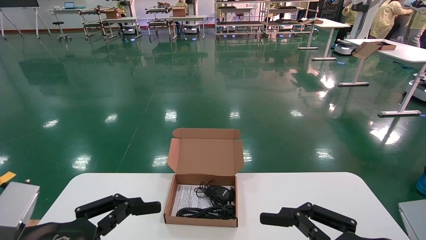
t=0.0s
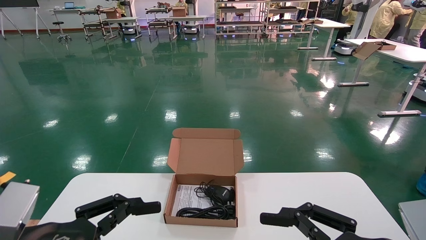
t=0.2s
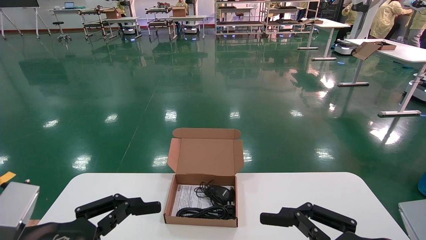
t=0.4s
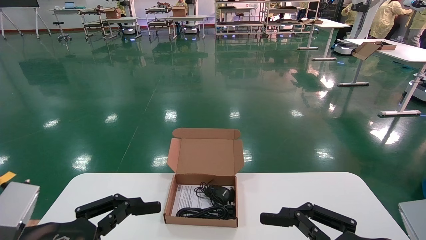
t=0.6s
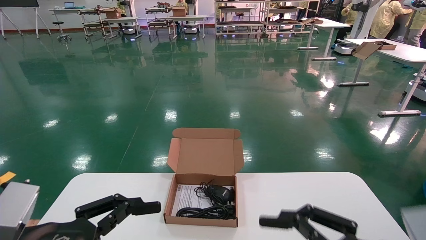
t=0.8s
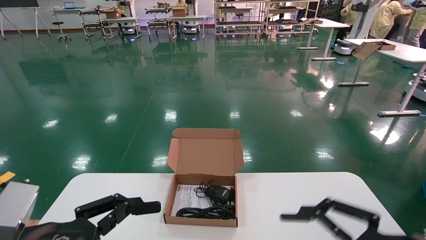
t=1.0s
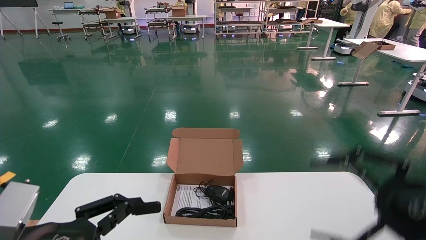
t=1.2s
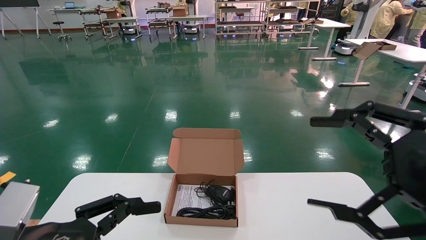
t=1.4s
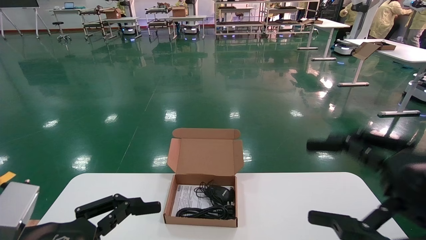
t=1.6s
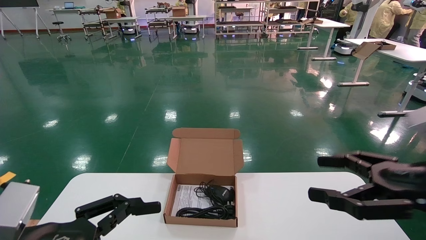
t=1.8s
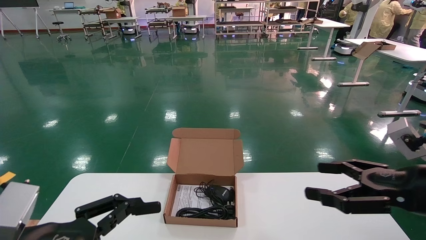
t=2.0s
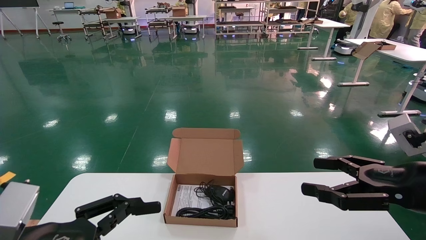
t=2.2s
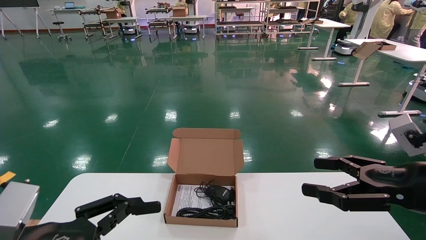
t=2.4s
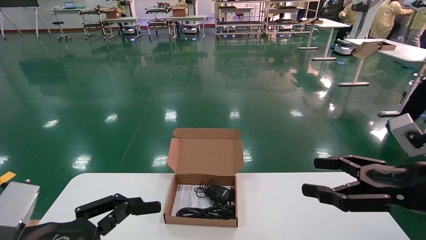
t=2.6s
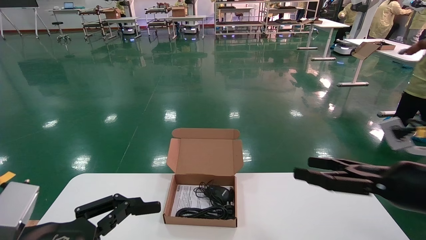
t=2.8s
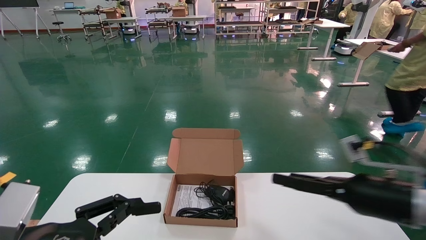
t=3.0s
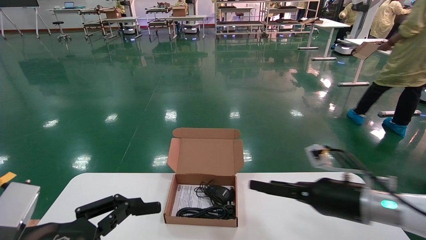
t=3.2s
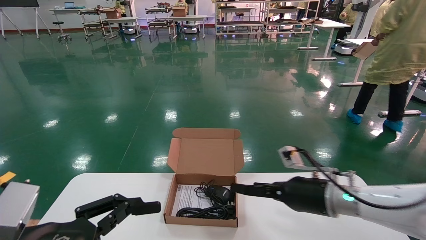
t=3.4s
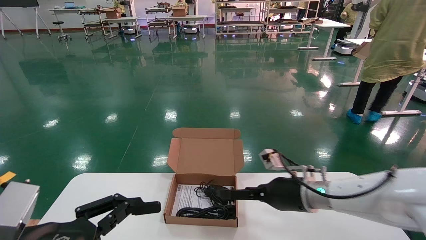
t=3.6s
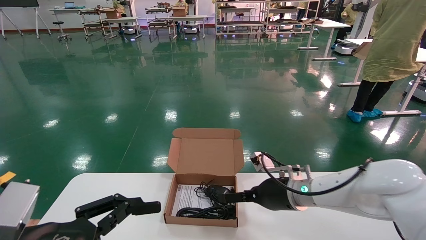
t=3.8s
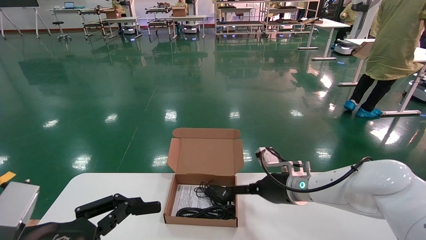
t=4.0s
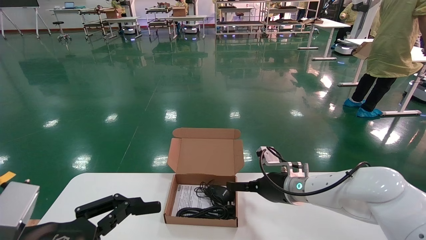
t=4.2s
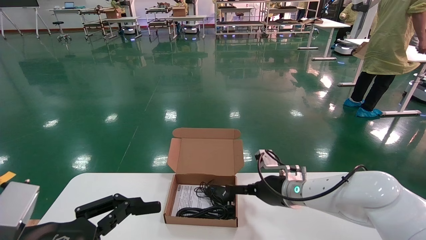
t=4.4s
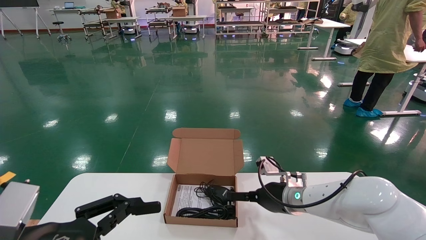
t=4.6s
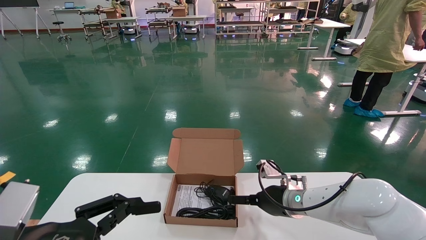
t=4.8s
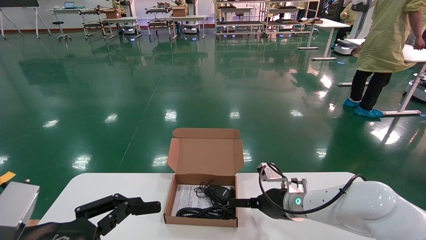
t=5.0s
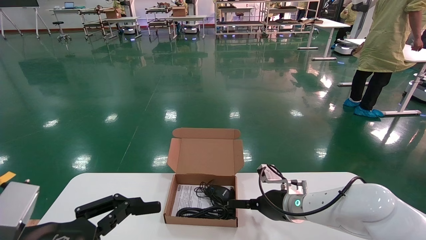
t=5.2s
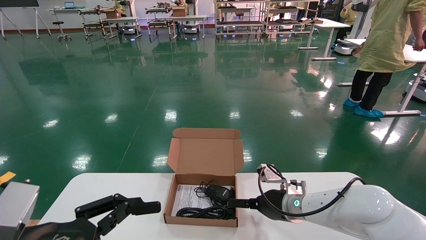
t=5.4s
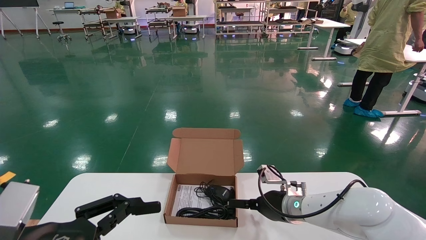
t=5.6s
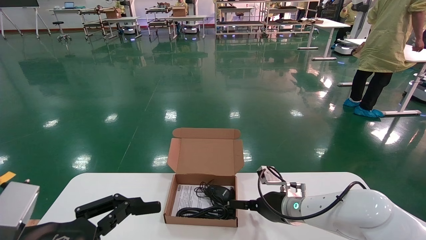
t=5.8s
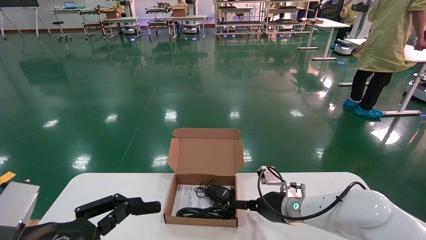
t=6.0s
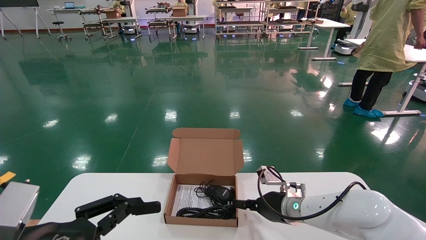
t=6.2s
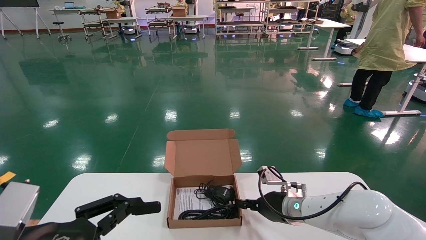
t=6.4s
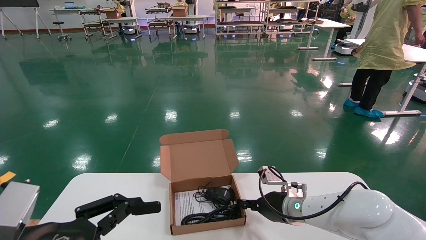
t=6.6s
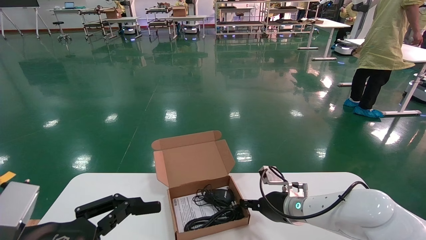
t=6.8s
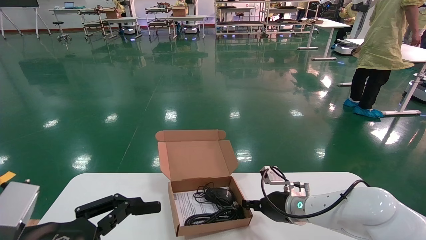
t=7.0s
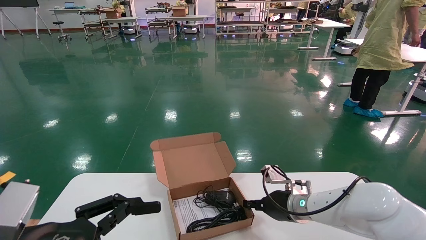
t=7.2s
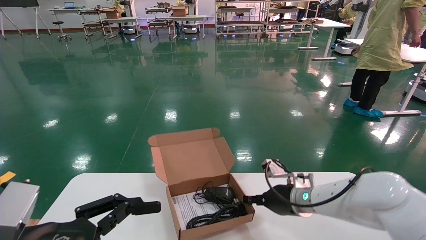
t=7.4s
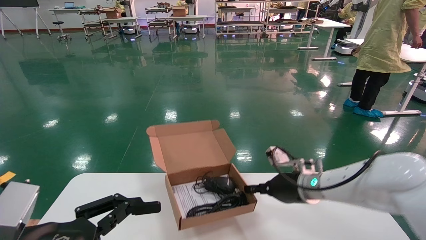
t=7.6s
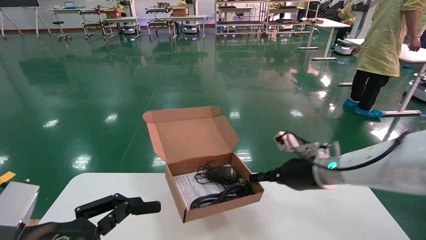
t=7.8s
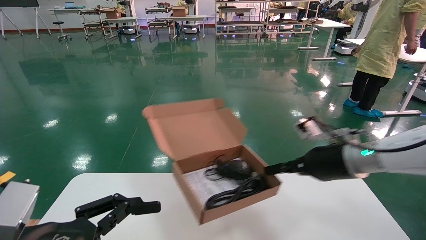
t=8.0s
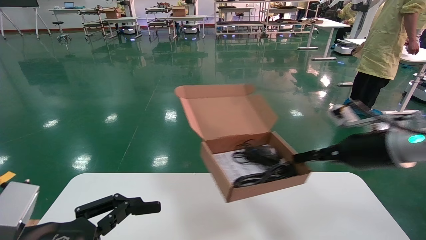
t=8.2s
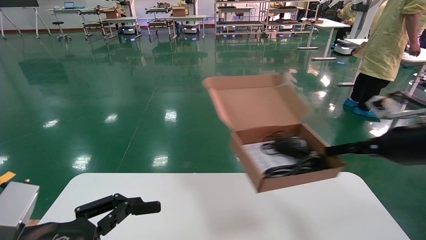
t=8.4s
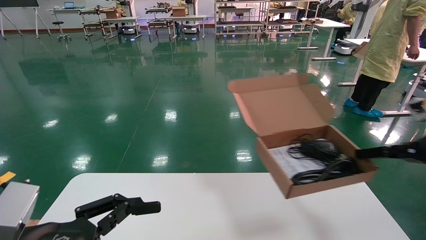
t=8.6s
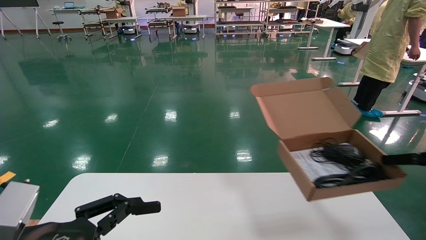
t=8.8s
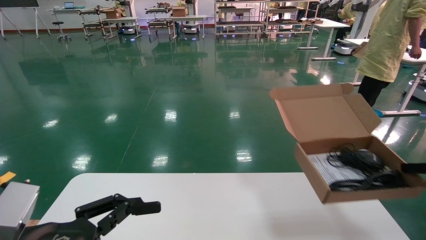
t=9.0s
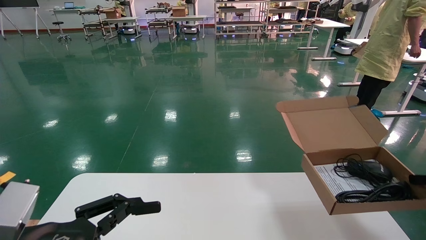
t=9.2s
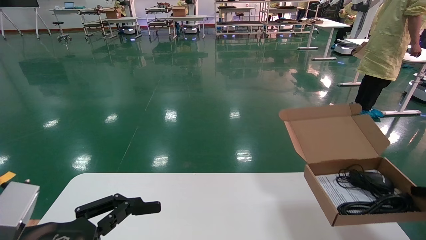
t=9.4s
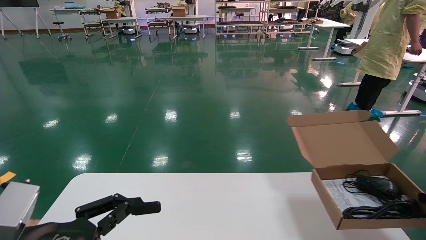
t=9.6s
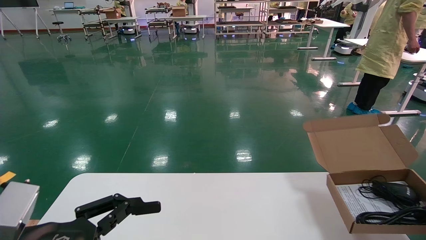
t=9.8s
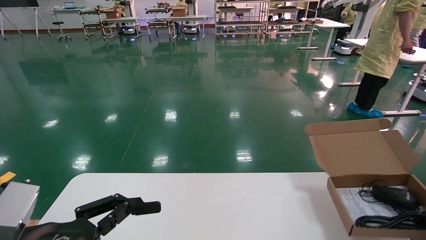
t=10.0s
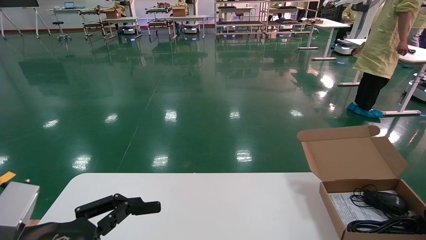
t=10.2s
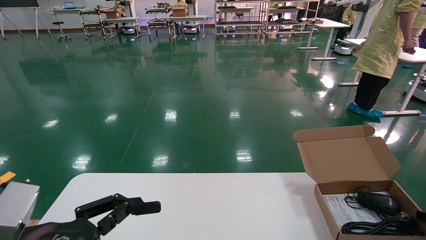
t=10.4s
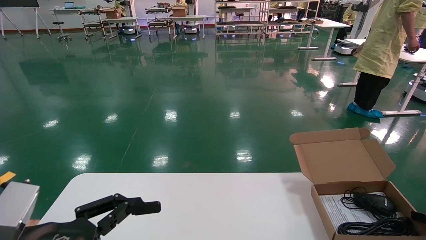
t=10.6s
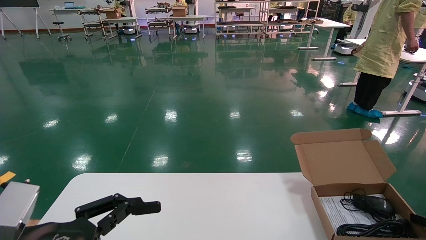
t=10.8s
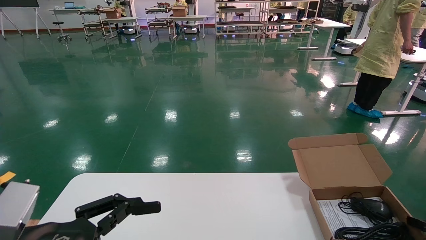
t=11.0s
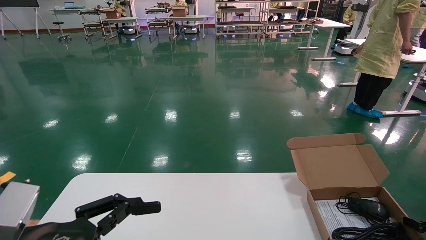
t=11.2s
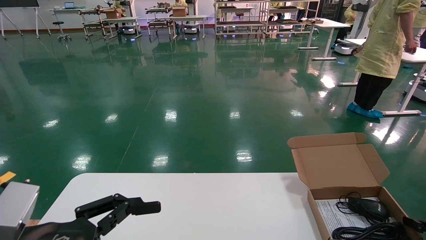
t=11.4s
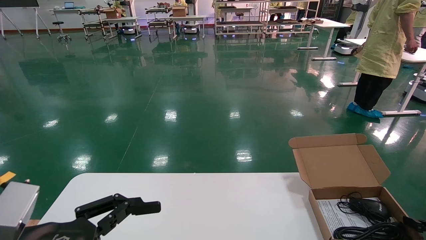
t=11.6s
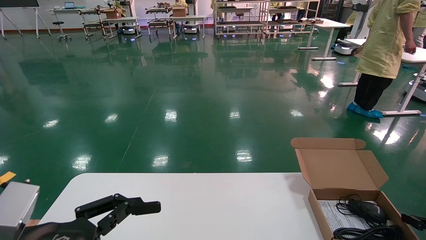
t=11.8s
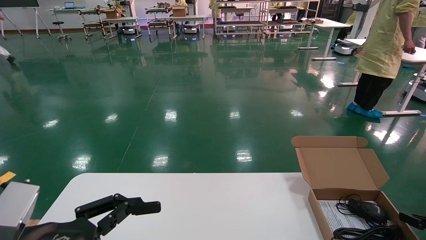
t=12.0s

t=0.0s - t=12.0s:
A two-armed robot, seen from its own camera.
Task of the whole recording: move the position of the storage box with accessories on the table.
Step, t=1.2s - t=6.8s: Grab and pick up the open mouse box from the accessory packaging area.
Step, t=7.0s - t=11.8s: Place the open mouse box onto the operation table.
t=0.0s - t=1.6s: The right gripper shifts about 10 cm upward and to the right.
t=1.6s - t=3.0s: The right gripper moves forward and downward, about 15 cm.
t=3.0s - t=4.4s: The right gripper heads to the left and forward, covering some 20 cm.
t=4.4s - t=6.0s: The grippers move only a little.
t=6.0s - t=7.6s: The right gripper goes some 5 cm upward, and closes its fingers.
t=7.6s - t=9.0s: The right gripper goes about 35 cm to the right and backward.
t=9.0s - t=10.4s: The right gripper is displaced downward by some 15 cm.
t=10.4s - t=12.0s: The grippers make only small movements.

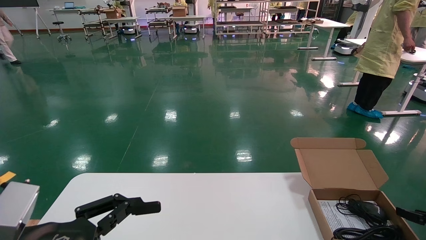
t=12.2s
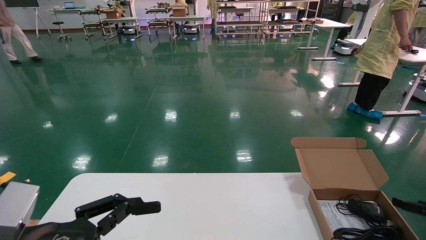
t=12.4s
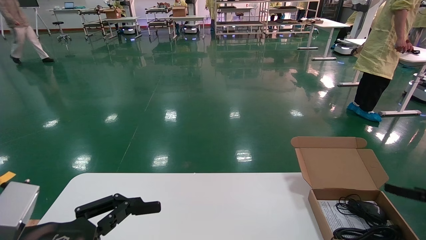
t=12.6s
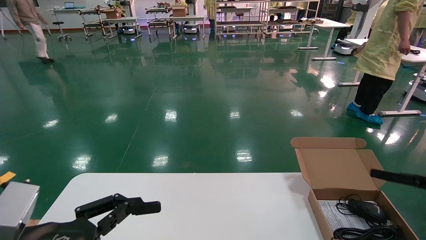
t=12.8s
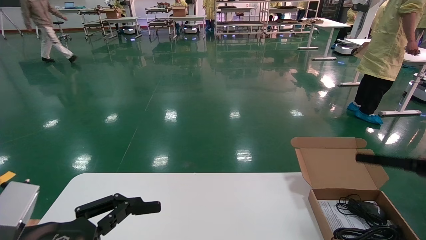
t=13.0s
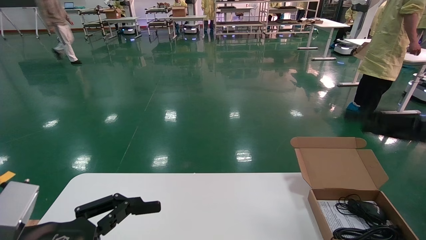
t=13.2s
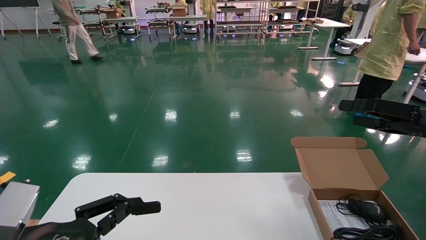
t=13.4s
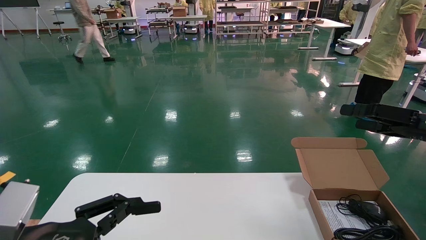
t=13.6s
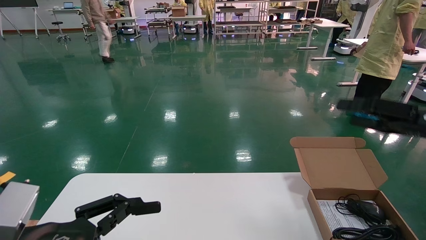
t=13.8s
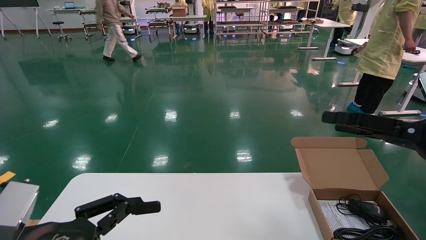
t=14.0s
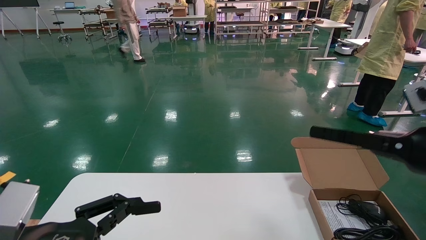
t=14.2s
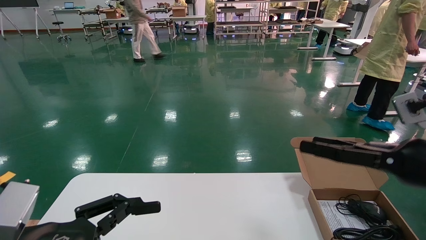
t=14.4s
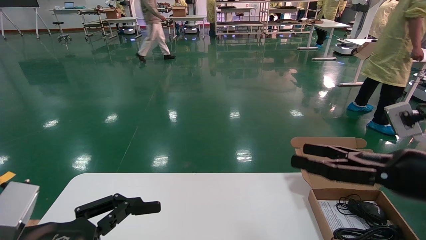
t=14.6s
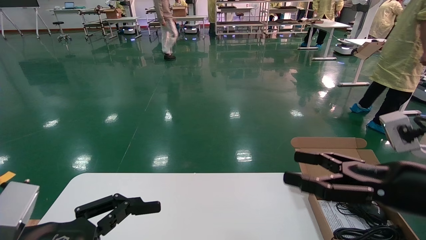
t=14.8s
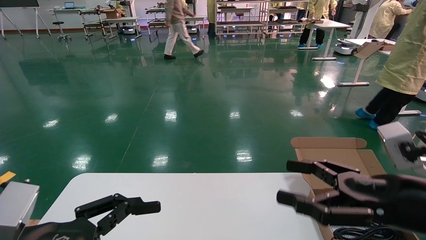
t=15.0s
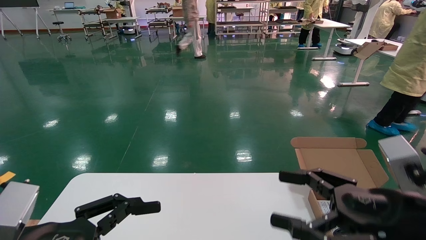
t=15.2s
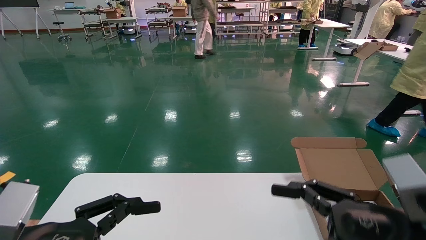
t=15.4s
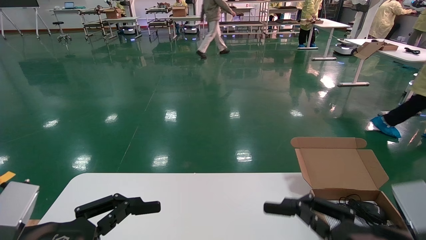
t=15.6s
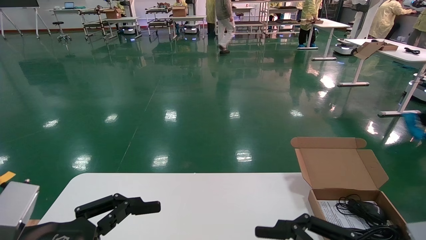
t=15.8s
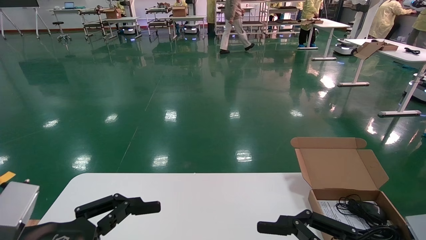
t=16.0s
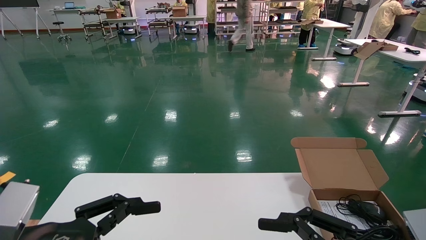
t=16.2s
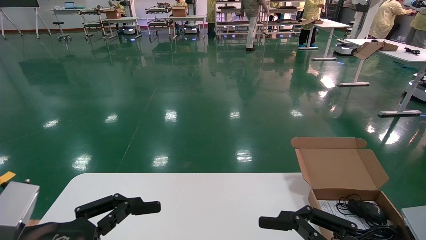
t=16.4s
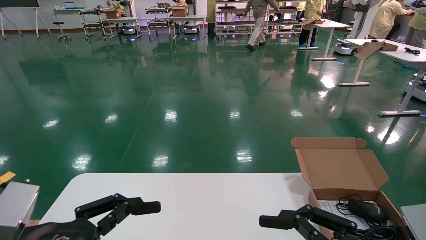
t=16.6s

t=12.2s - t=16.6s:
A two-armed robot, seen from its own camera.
Task of the whole recording: move the position of the storage box with accessories on the table.
t=12.2s - t=13.6s: The right gripper heads upward and to the left, covering roughly 20 cm, and opens up.
t=13.6s - t=15.2s: The right gripper travels to the left, downward and backward by about 15 cm.
t=15.2s - t=16.6s: The right gripper shifts about 5 cm backward.
